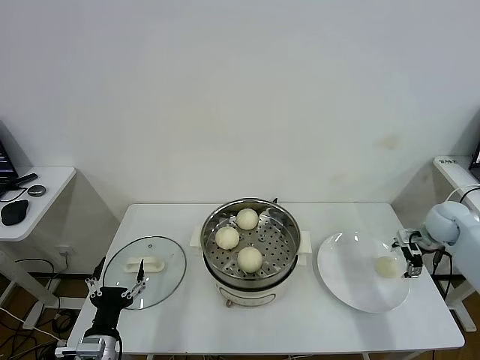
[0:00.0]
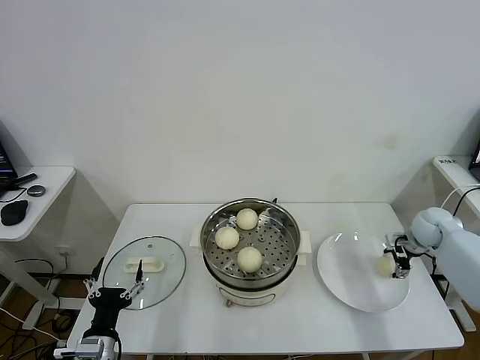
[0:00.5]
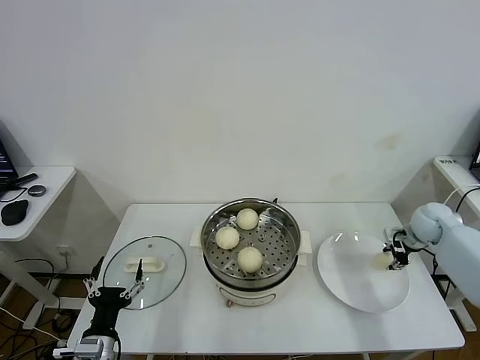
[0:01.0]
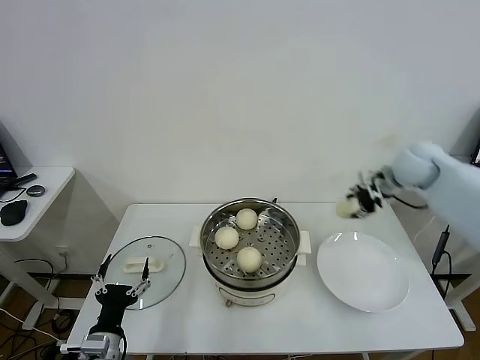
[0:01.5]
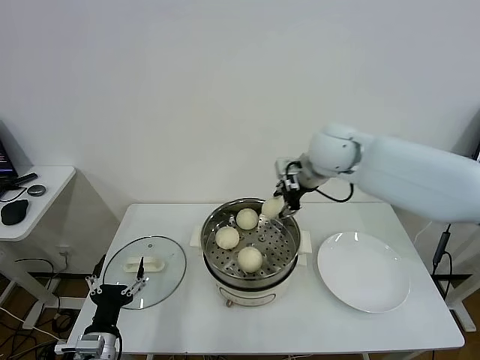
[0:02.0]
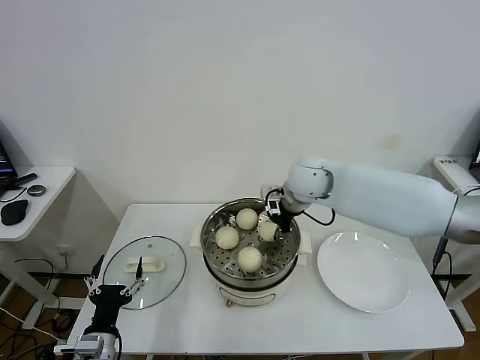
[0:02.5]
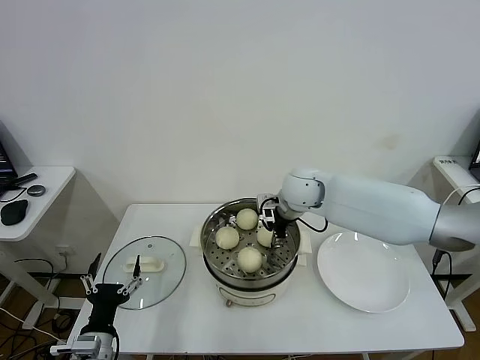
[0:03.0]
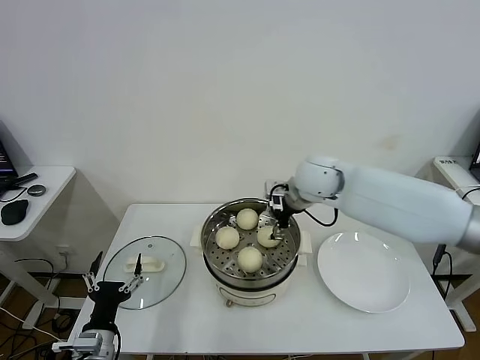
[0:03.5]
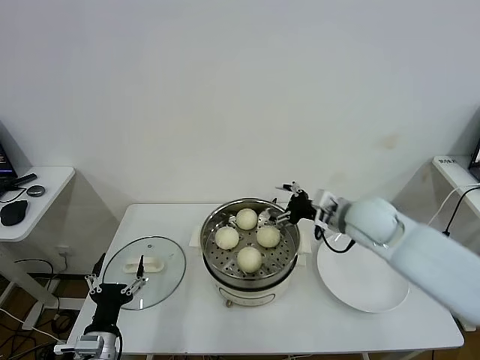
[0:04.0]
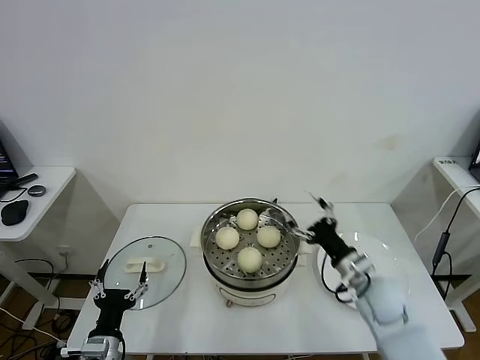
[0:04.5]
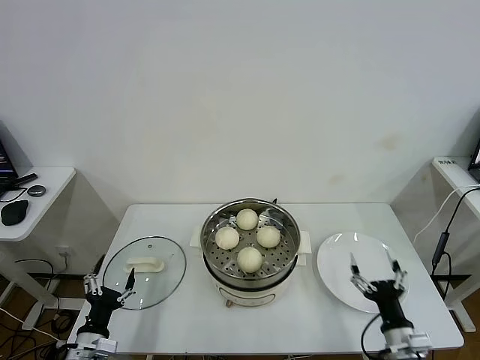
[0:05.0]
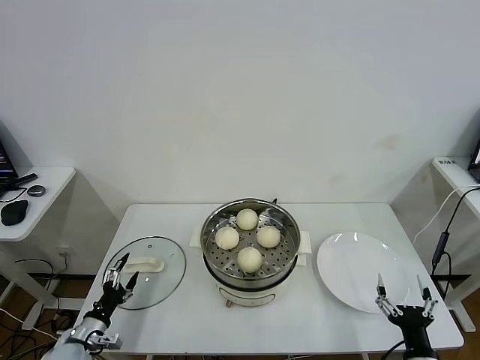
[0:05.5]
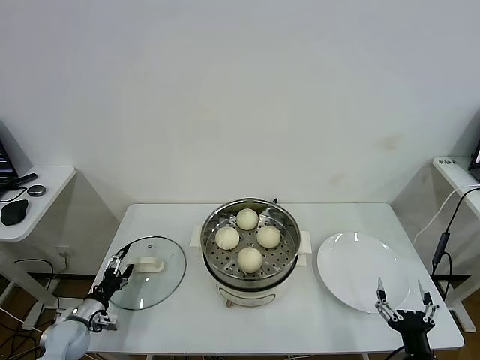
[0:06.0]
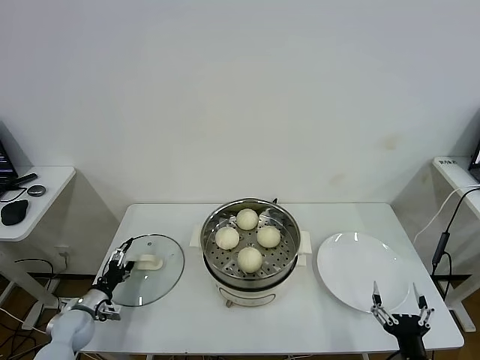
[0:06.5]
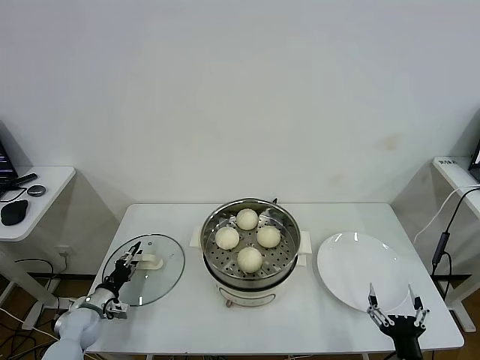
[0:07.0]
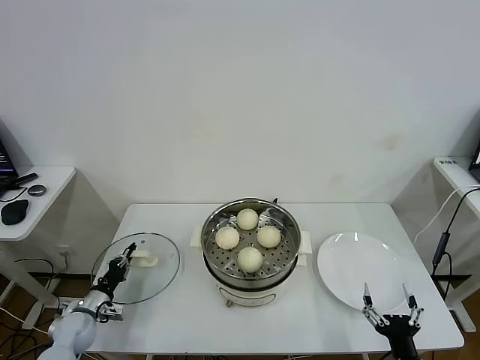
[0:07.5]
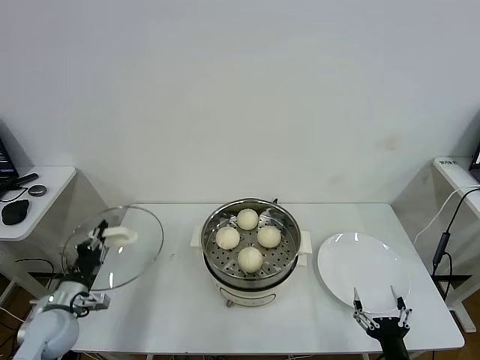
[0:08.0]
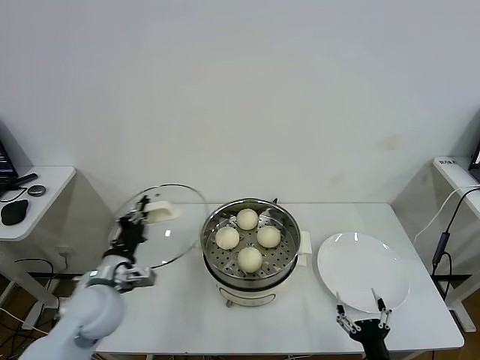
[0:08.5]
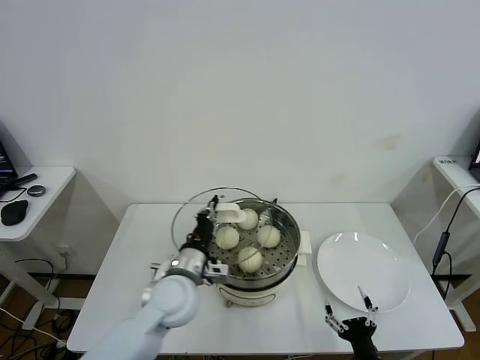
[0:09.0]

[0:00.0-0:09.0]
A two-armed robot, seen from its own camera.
Task of the whole recording: take steamed baozi put them in steamer.
Step, 0:01.0 to 0:03.0: Place the baozi on the steamer with right gripper.
Step, 0:03.5 to 0:07.0: Grasp the pot lid with left gripper.
0:00.0 to 0:02.0: The right gripper moves to the left and upward, approximately 35 cm, and closes its fingers.
0:02.0 to 0:04.5: The right gripper goes up and down, about 25 cm each way, reversing 2 times, and opens.
0:04.5 to 0:07.0: The right gripper goes roughly 25 cm backward; the left gripper heads forward, to the left and downward, covering approximately 25 cm, and closes its fingers.
0:07.0 to 0:09.0: The left gripper is displaced to the right and upward by roughly 35 cm, and closes its fingers. The right gripper moves approximately 5 cm.

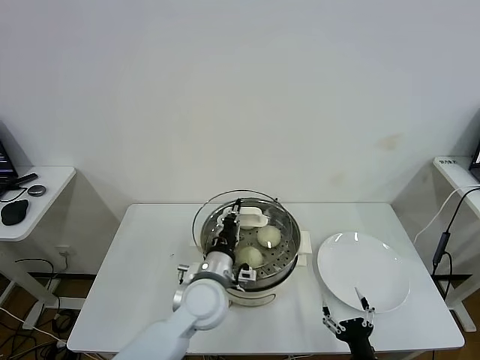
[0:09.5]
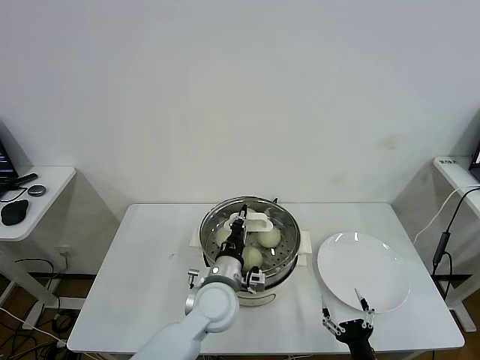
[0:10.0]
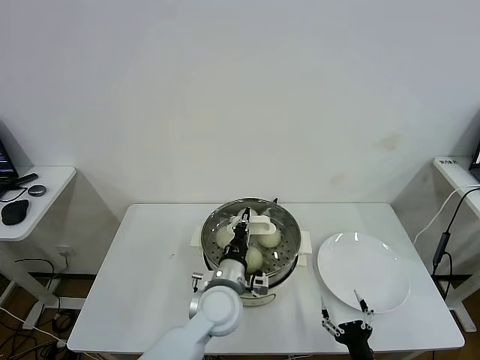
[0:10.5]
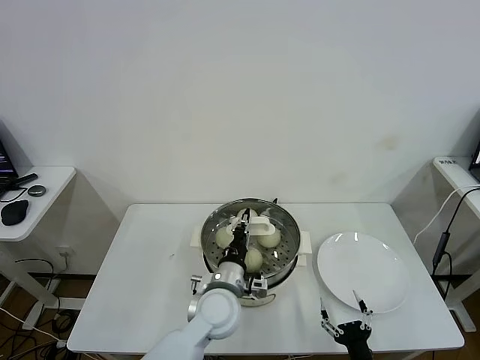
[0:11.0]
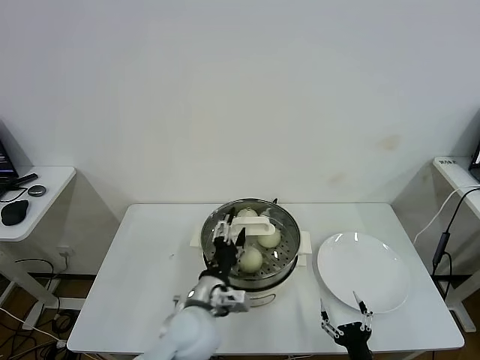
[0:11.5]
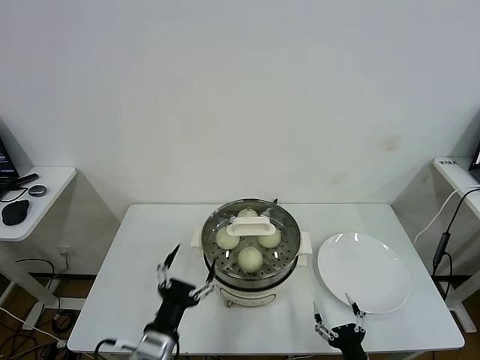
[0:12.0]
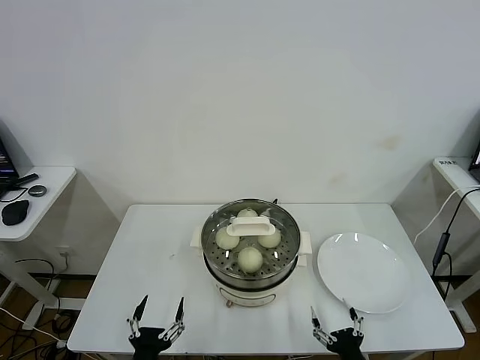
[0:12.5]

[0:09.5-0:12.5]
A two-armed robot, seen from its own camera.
Task of the whole recording: take steamed baozi put them in steamer.
Step, 0:09.5 to 0:11.5: Place the pot lid on the steamer with left gripper.
0:09.5 to 0:11.0: There are only small adjustments of the grippers.
0:11.0 to 0:12.5: The left gripper shifts some 25 cm backward and to the left, and opens its fingers.
